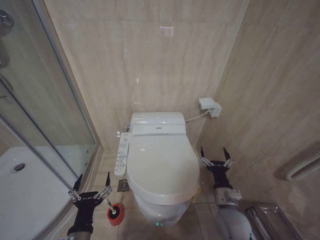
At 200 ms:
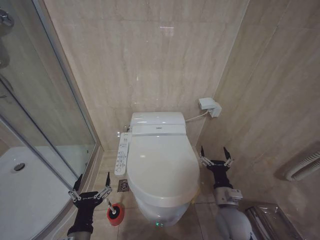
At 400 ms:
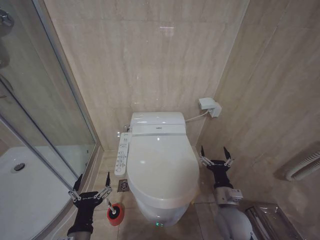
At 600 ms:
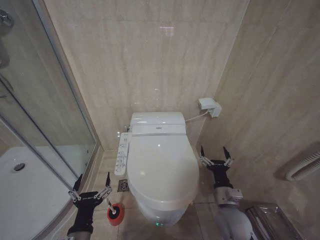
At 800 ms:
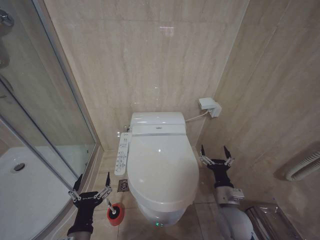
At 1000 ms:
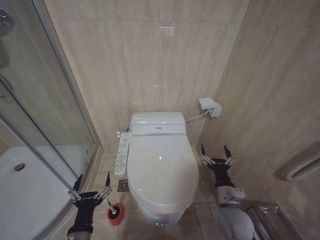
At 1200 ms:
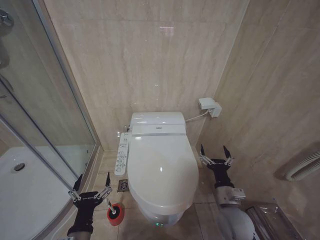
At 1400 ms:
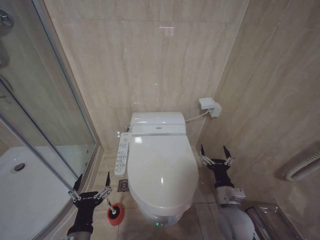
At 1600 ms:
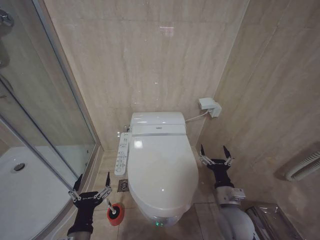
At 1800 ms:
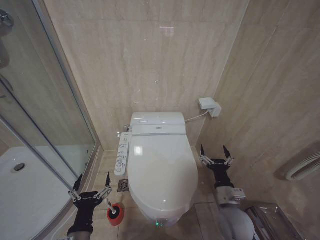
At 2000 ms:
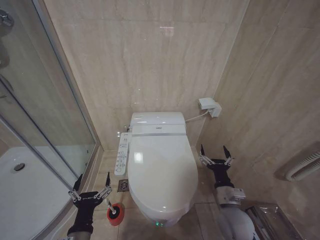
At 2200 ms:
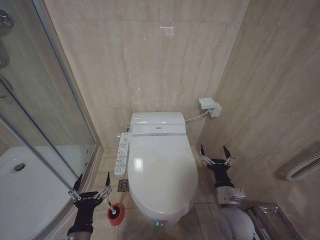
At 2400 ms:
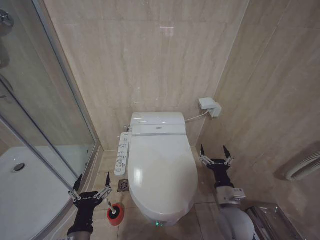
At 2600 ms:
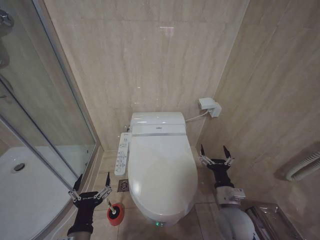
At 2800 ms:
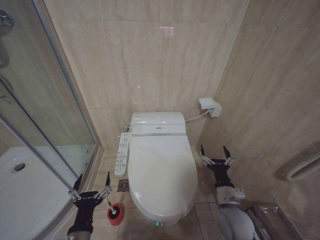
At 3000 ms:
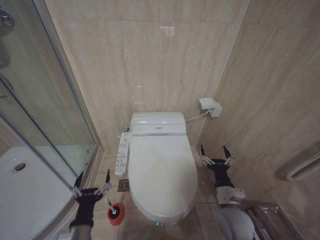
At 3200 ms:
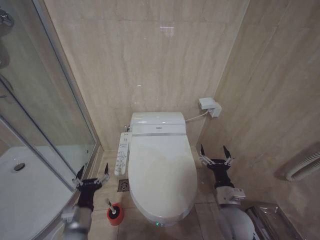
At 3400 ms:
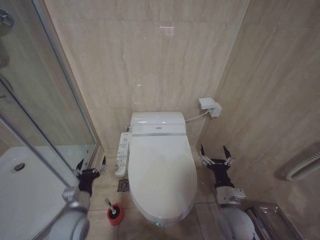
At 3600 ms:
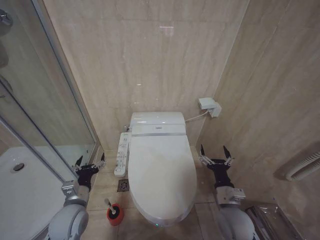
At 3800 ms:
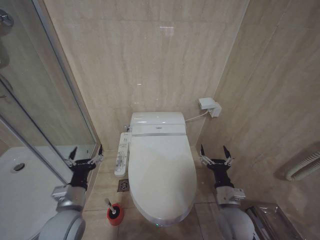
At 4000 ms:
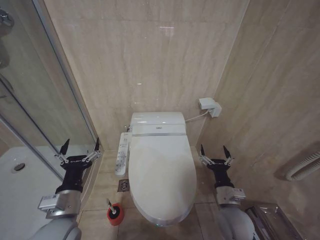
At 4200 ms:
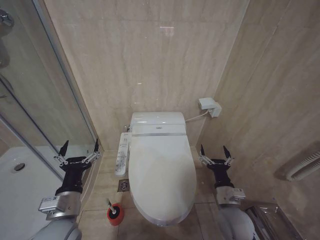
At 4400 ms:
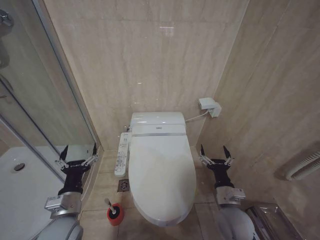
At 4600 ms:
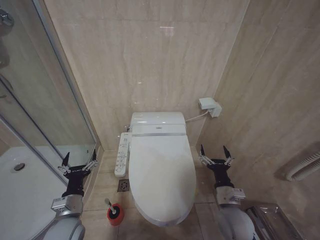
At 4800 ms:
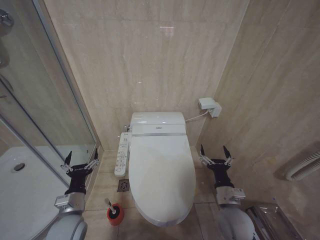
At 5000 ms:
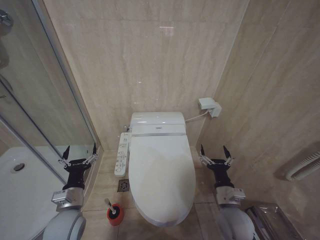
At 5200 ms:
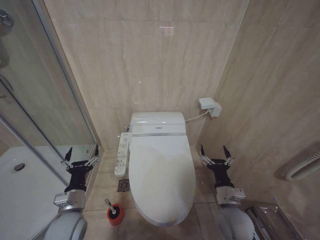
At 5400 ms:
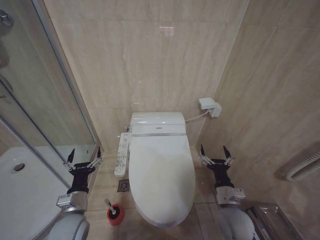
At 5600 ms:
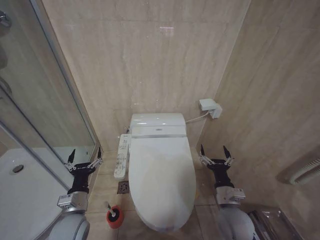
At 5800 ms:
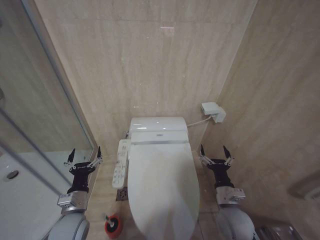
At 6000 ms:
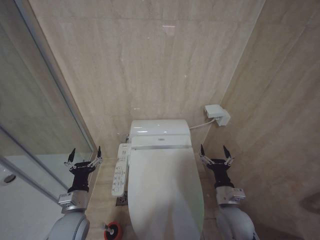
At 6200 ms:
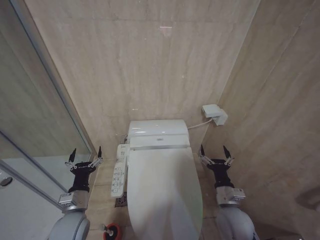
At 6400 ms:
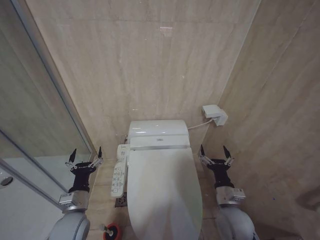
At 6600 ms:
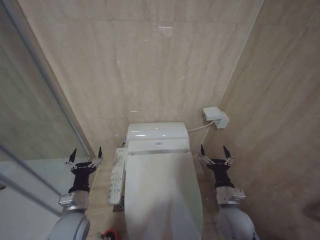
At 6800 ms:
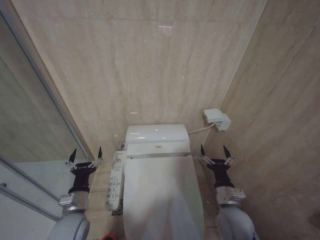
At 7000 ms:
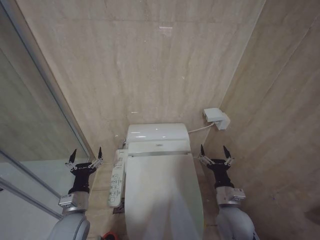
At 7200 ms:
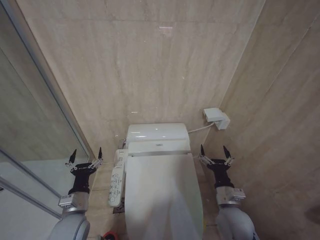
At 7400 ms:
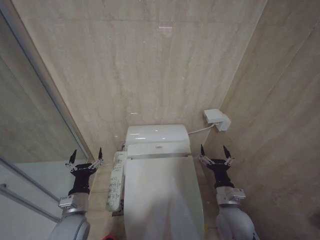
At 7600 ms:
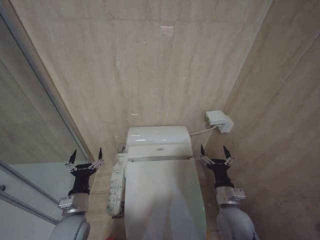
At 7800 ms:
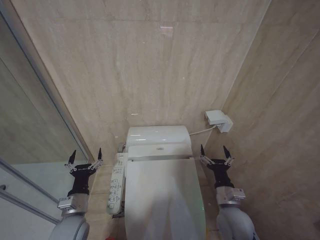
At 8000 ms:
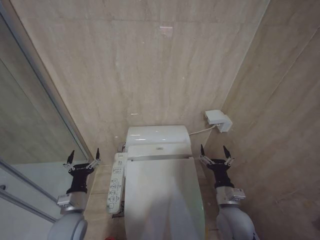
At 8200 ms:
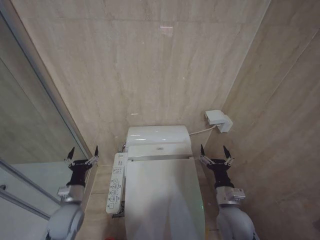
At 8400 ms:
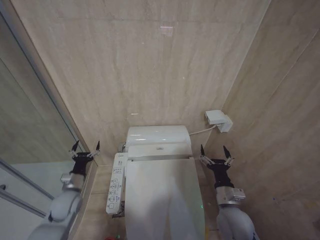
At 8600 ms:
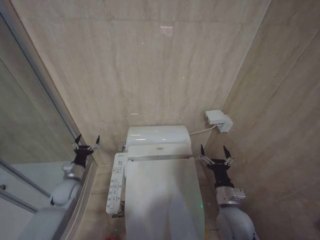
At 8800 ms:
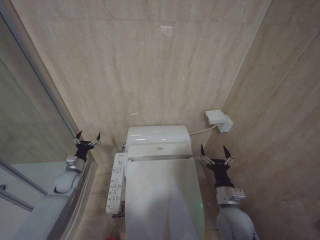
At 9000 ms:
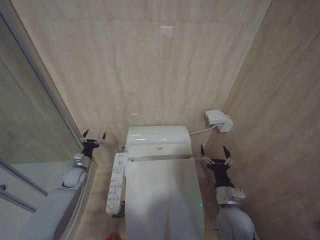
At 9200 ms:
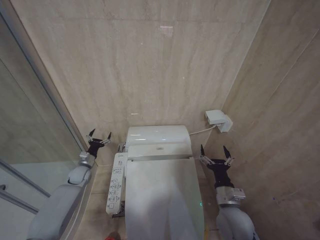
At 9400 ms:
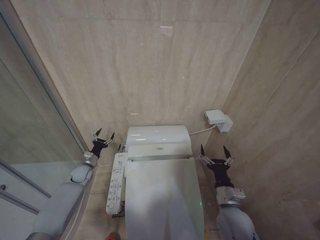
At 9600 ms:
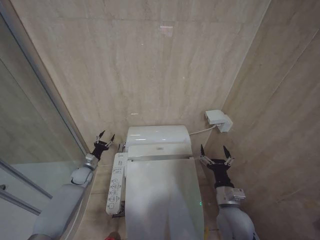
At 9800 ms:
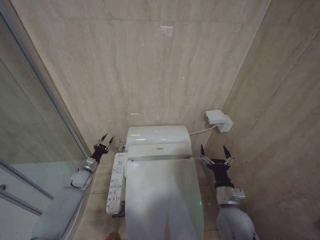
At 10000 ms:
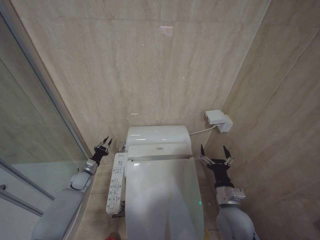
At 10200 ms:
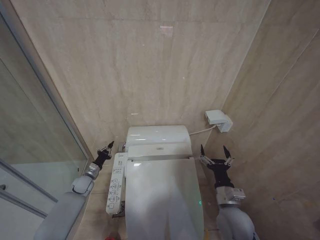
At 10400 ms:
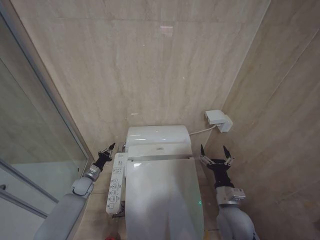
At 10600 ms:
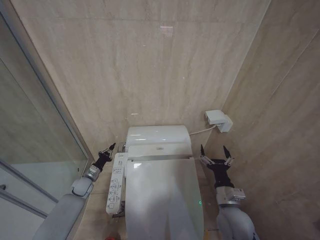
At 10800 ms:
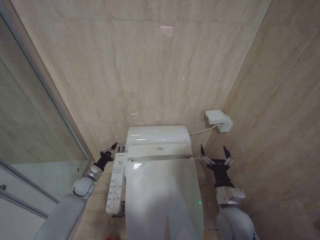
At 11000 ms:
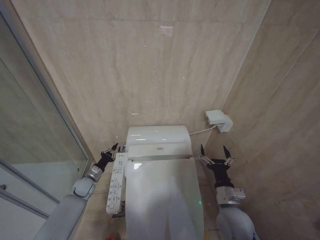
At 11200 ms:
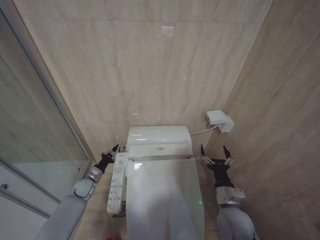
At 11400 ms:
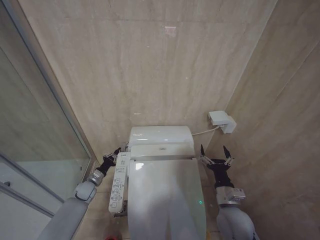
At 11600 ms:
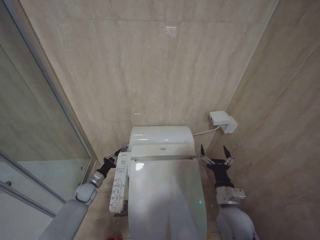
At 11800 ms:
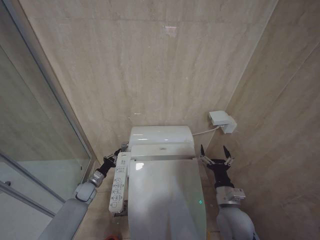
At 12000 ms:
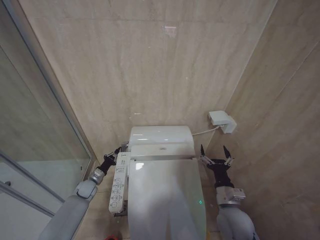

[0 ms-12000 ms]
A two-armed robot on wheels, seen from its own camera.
Task of the whole recording: Open the toilet lid, clean the toilet bowl with a toilet brush, close the toilet lid, and flush.
1600 ms to 3000 ms: Neither gripper changes place.
3000 ms to 4400 ms: The left gripper goes some 10 cm forward and upward.
4400 ms to 6000 ms: The left gripper moves downward, about 5 cm.
6000 ms to 7600 ms: Both grippers stay put.
7600 ms to 9000 ms: The left gripper heads forward and to the left, covering some 25 cm.
9000 ms to 10400 ms: The left gripper goes about 5 cm downward, and closes.
10400 ms to 12000 ms: The grippers stay close to where they were, moving slightly.

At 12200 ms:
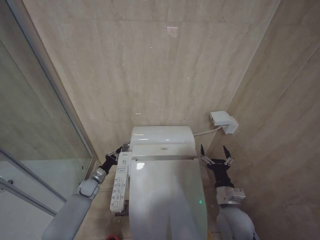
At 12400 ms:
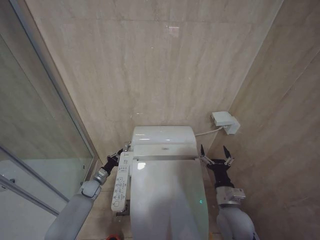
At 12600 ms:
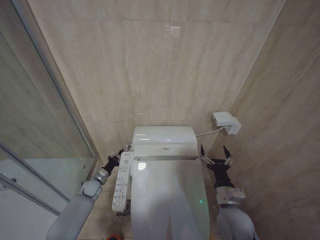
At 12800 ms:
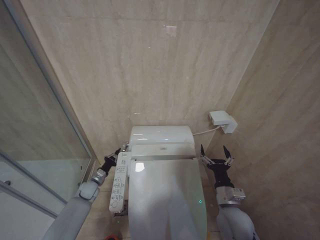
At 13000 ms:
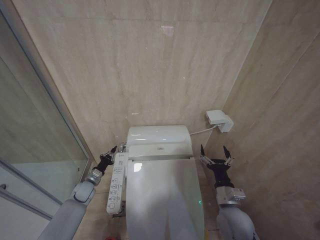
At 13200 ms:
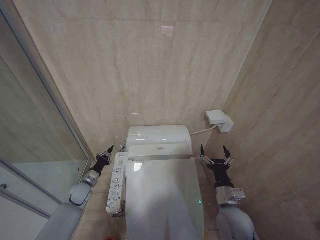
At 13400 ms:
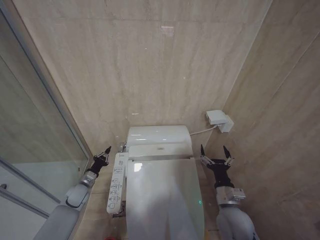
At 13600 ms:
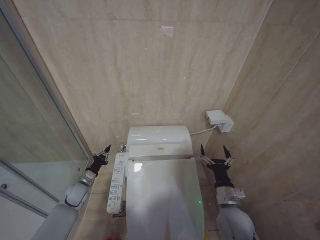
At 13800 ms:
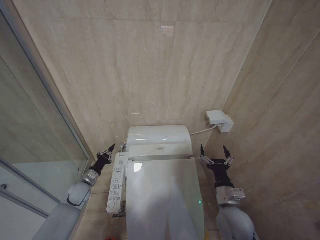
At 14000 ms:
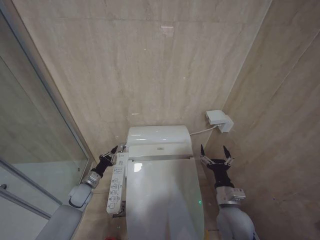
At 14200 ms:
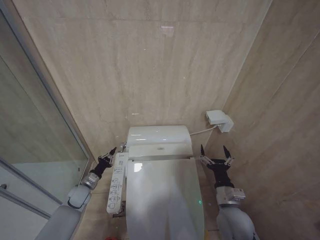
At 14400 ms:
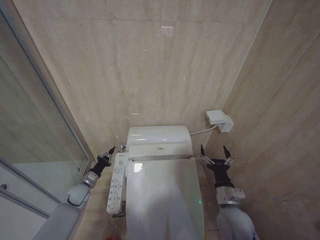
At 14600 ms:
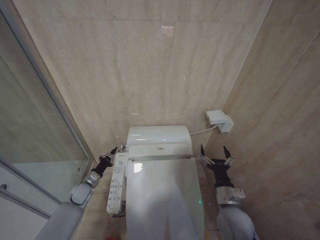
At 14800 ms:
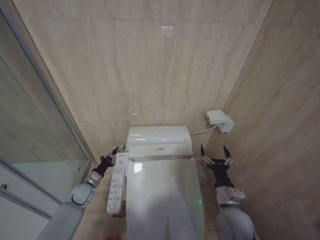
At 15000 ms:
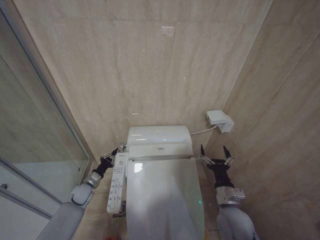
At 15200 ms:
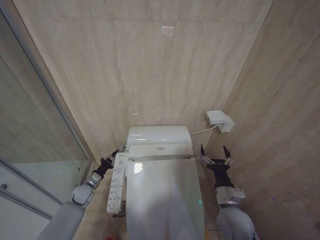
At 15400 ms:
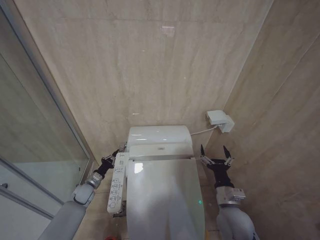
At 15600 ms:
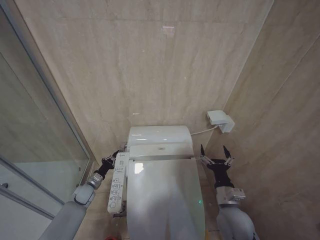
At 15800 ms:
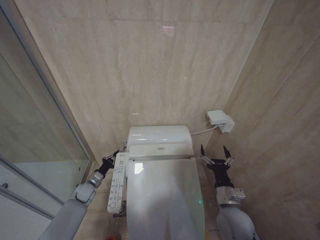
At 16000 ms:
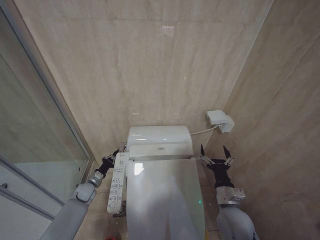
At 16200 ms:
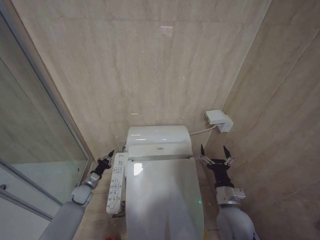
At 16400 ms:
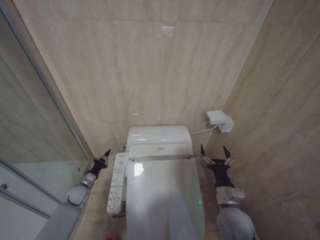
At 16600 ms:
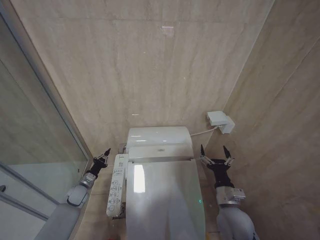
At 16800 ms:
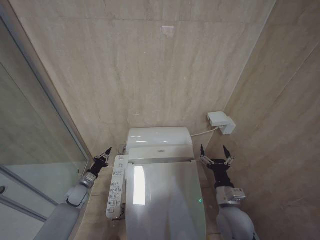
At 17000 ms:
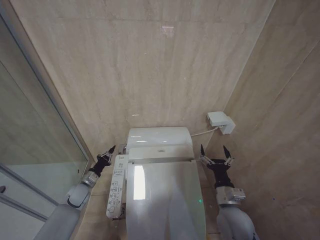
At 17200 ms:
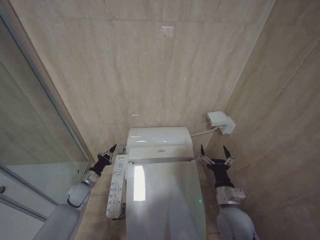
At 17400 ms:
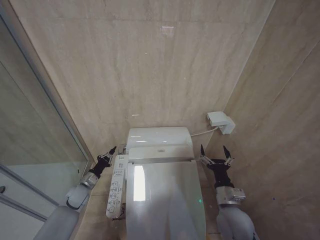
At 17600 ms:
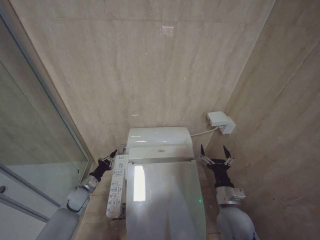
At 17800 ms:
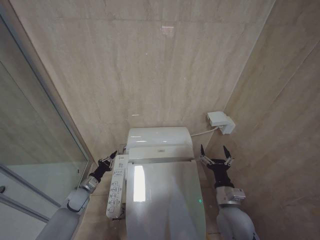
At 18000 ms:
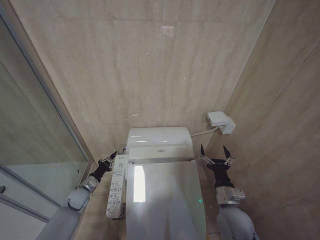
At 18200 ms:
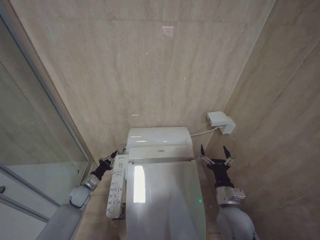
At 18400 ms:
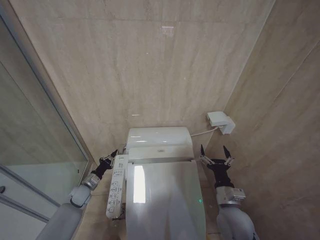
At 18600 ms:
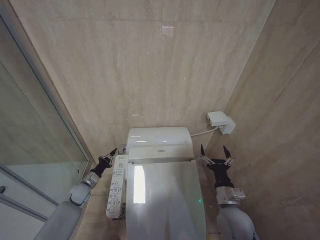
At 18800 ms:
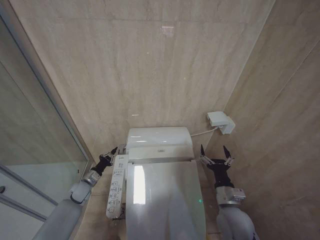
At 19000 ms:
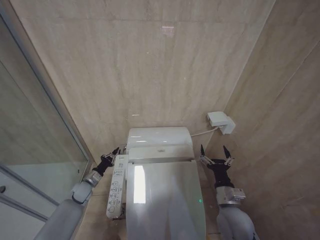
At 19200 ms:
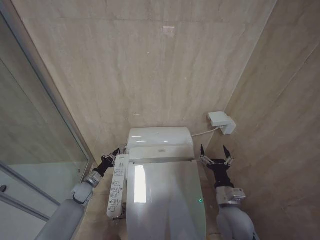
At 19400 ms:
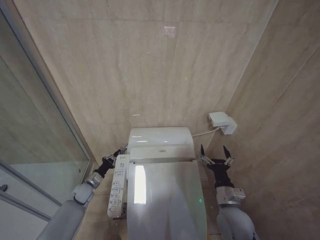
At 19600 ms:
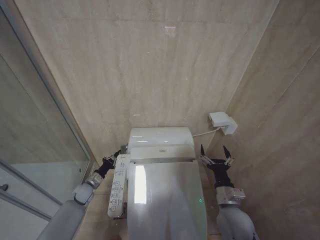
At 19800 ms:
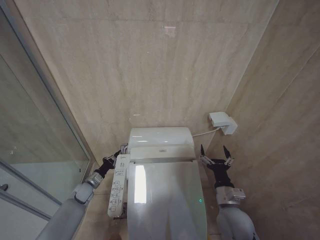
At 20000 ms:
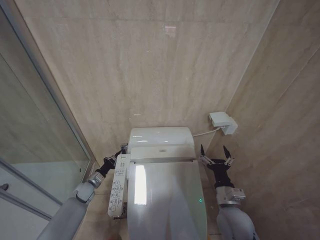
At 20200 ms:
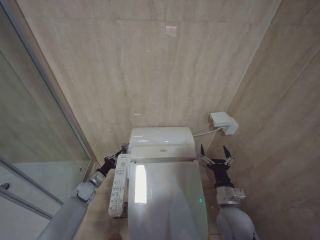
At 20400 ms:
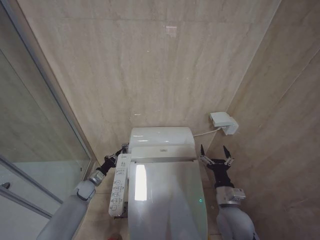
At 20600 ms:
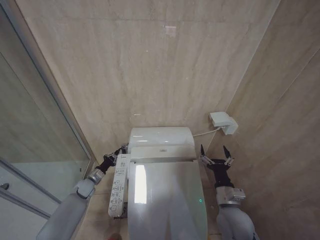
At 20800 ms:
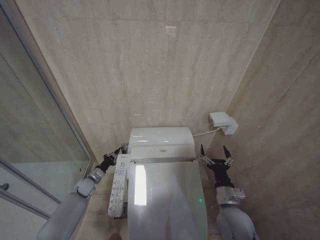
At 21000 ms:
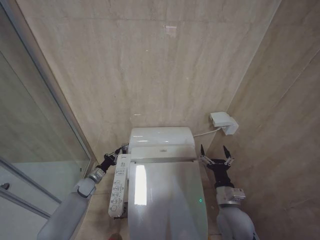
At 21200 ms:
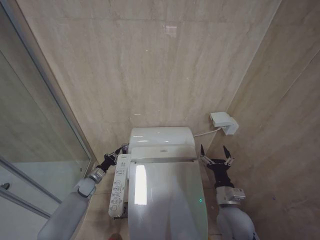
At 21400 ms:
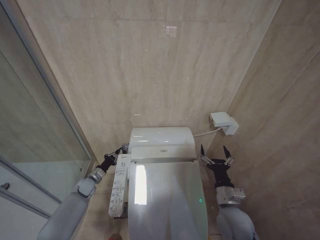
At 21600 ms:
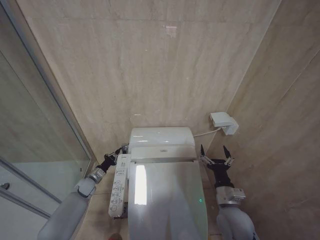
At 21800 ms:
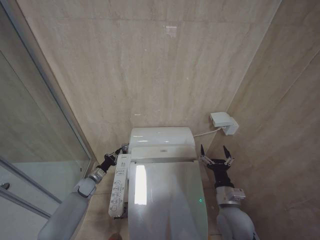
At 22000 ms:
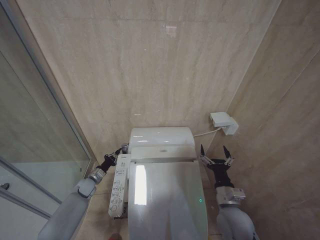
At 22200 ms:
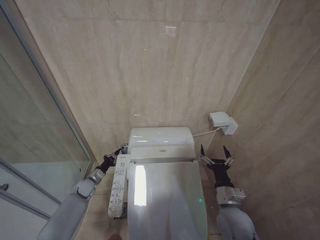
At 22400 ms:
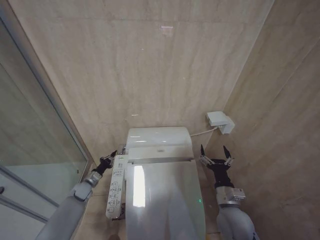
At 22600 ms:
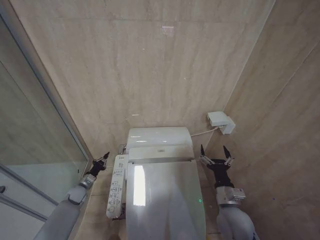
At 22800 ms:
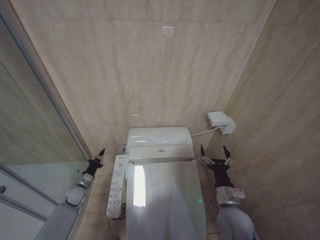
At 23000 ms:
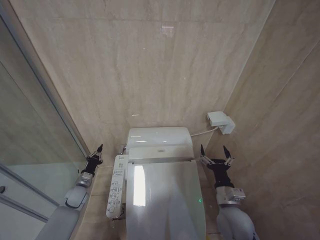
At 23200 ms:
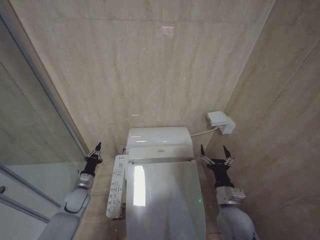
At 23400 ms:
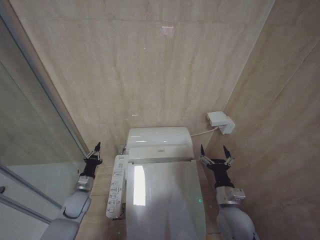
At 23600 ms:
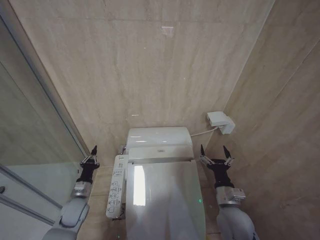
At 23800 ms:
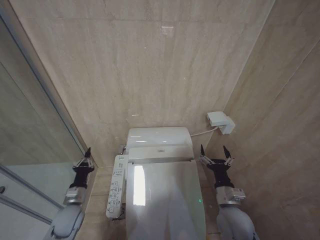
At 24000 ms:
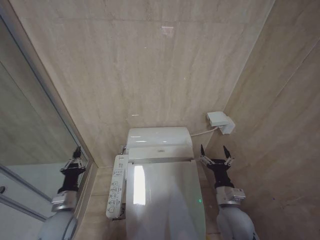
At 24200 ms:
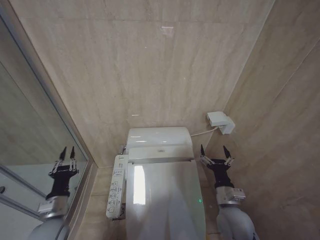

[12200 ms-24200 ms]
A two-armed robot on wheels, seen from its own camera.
Task of the whole recording: Open the toilet lid, clean the toilet bowl with a toilet brush, close the toilet lid, and flush.
12200 ms to 13800 ms: The left gripper moves upward, about 5 cm.
15200 ms to 21200 ms: There are only small adjustments of the grippers.
21200 ms to 22600 ms: The left gripper shifts by about 5 cm.
22600 ms to 24200 ms: The left gripper is displaced backward and upward by approximately 25 cm.
